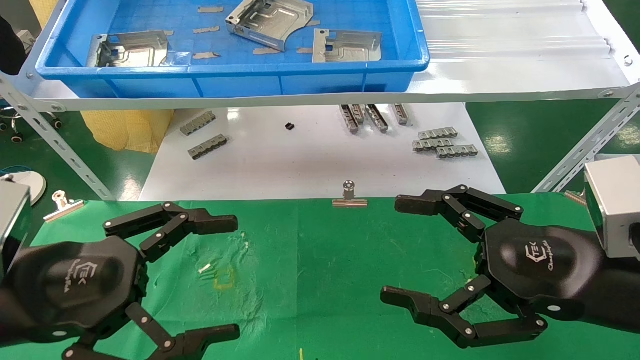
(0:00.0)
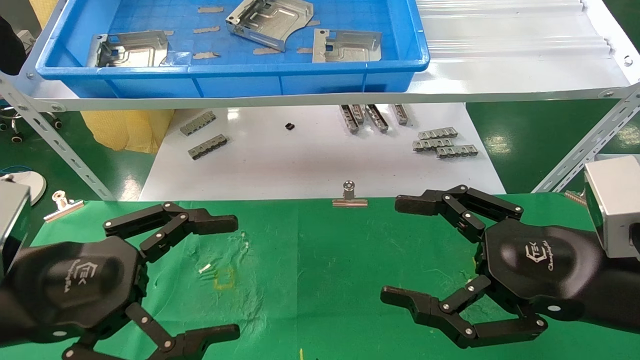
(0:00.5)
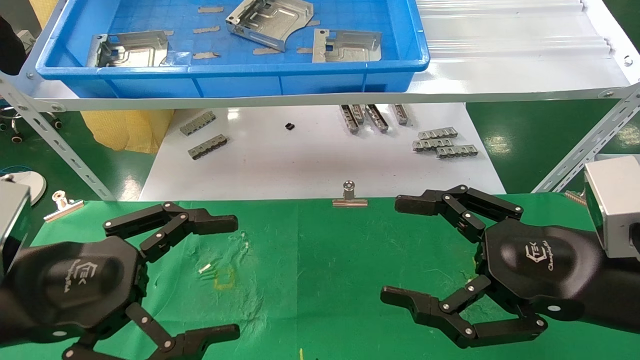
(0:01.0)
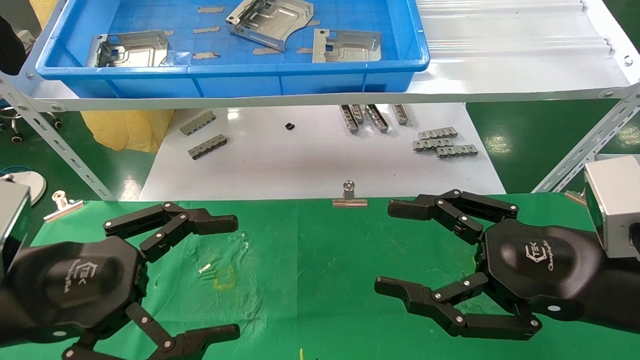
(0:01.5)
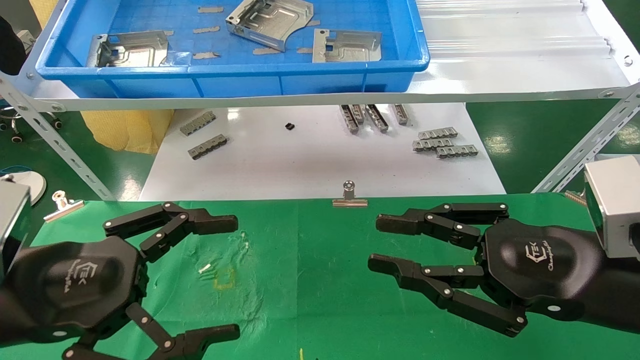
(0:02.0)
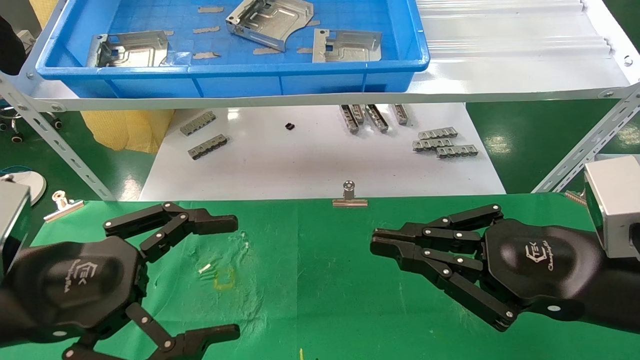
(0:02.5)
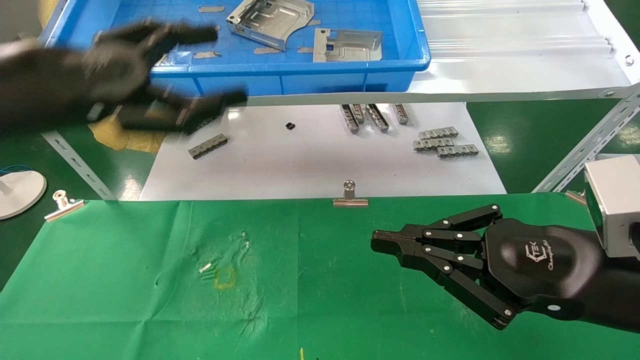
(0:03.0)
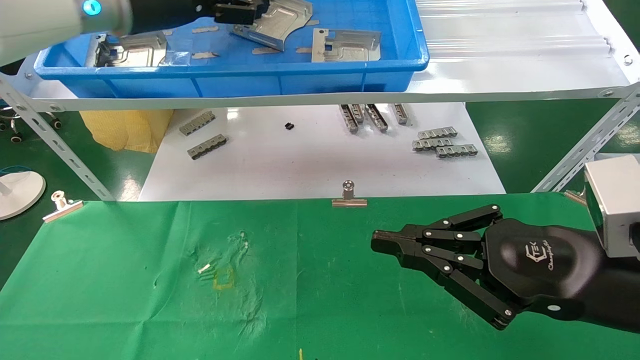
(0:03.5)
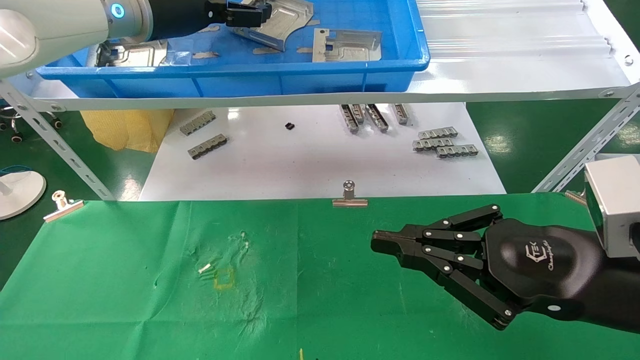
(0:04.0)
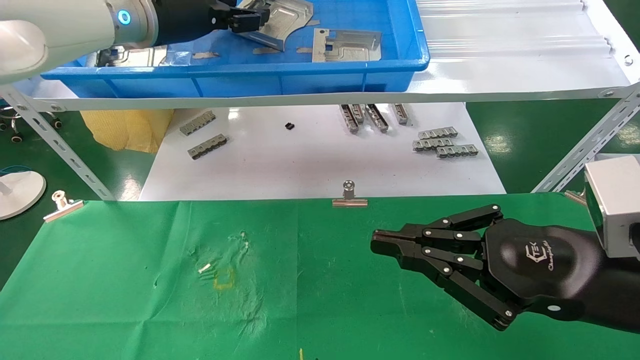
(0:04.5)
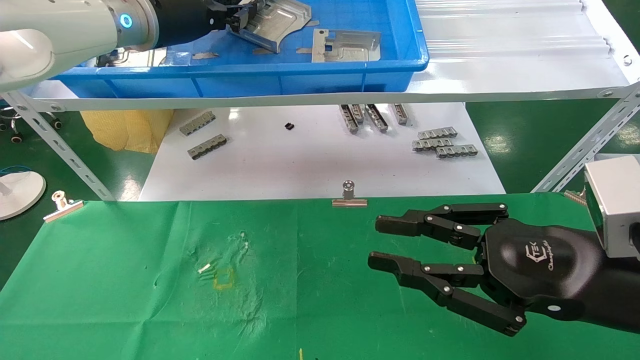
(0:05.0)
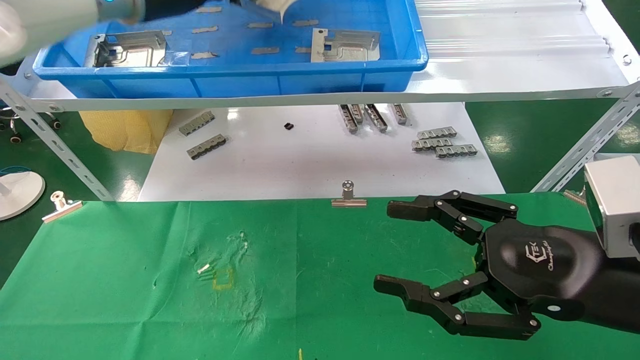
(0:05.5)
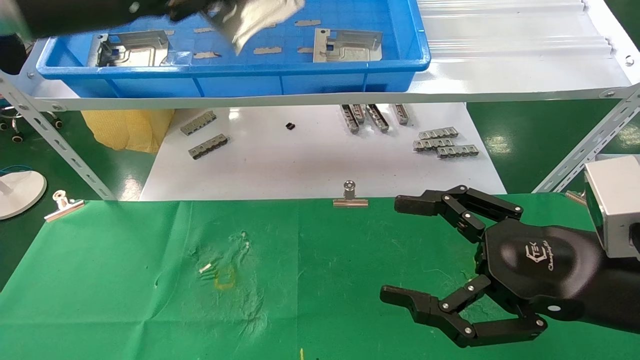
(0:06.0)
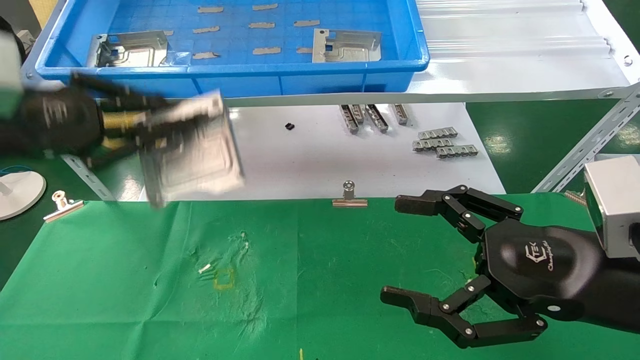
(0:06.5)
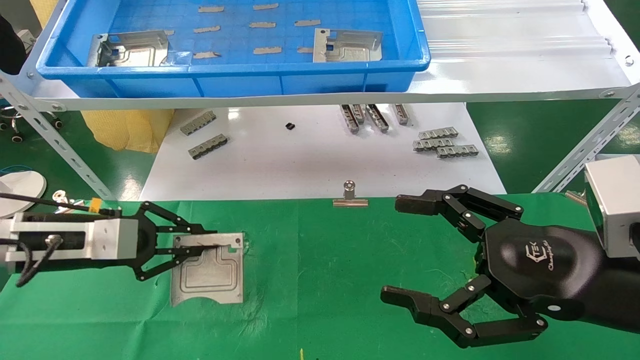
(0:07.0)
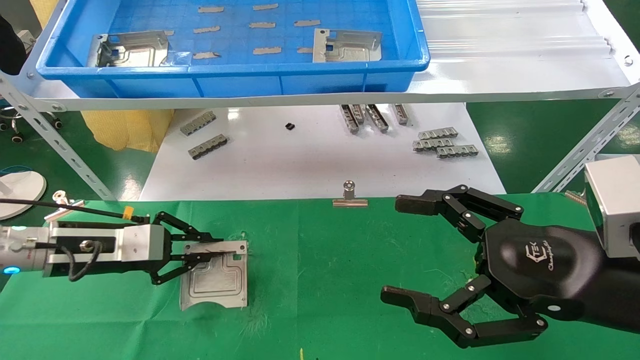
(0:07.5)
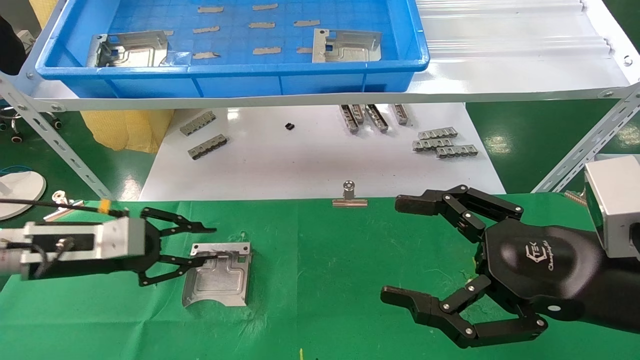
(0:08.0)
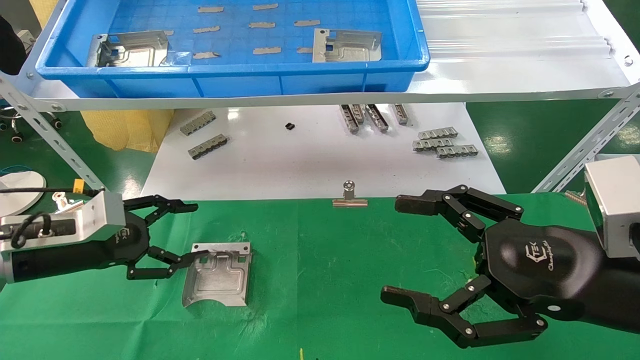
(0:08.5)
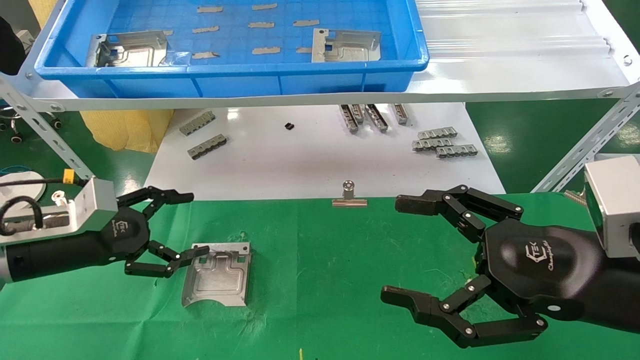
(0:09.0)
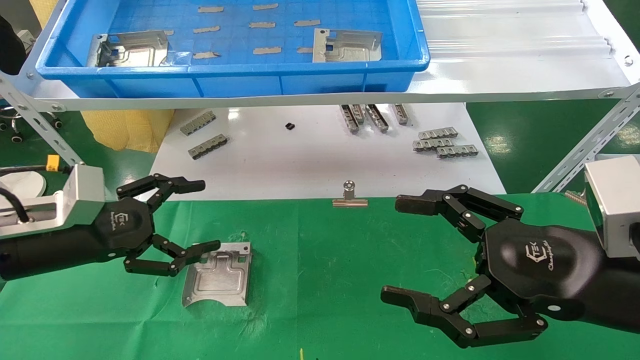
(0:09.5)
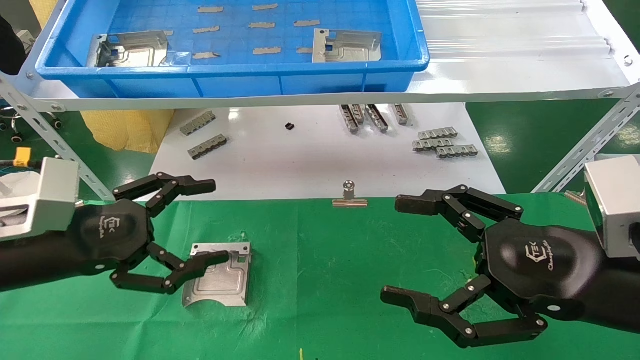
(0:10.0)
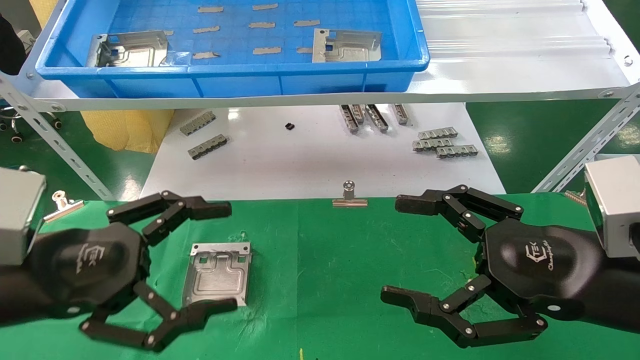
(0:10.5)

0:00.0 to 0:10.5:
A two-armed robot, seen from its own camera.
Task of the whole recording: use the mechanical arm to pick up the parts and place them on the table.
Step, 0:03.0 to 0:05.0: Pick up the hard drive bracket from the feeding area.
Step, 0:05.5 to 0:08.0: Place the hard drive bracket into the box.
0:00.0 to 0:02.0: The right gripper closes up.
0:02.0 to 0:04.0: The right gripper closes up, while the left gripper heads forward and upward, covering roughly 35 cm.
0:04.0 to 0:06.5: The right gripper opens up, while the left gripper goes about 25 cm to the left, downward and backward, and closes its fingers.
0:06.5 to 0:08.5: The left gripper shifts approximately 15 cm downward, and opens up.
0:08.5 to 0:10.5: The left gripper moves backward and to the right, approximately 15 cm, and opens its fingers.
